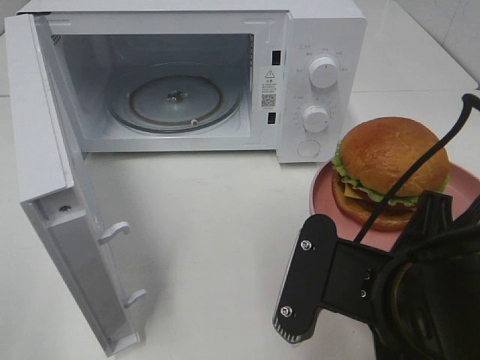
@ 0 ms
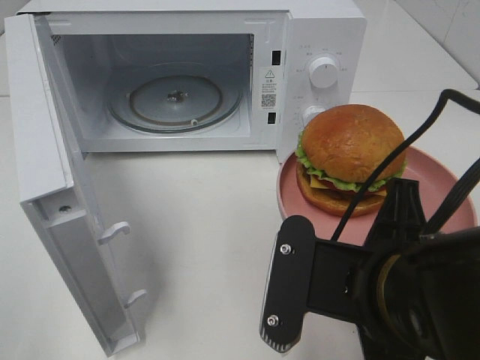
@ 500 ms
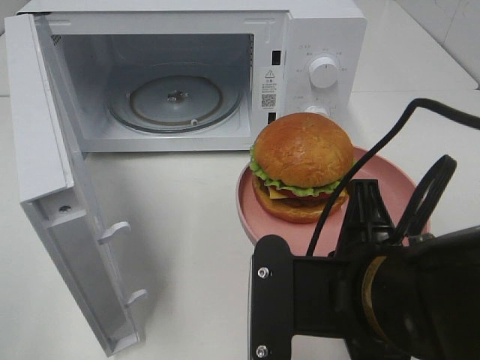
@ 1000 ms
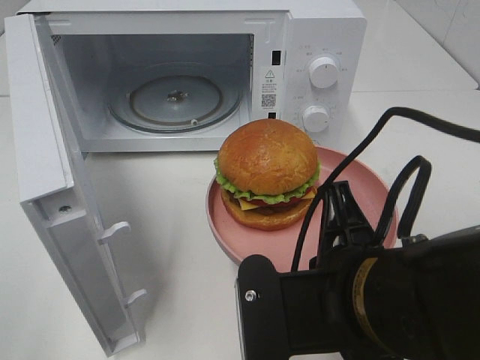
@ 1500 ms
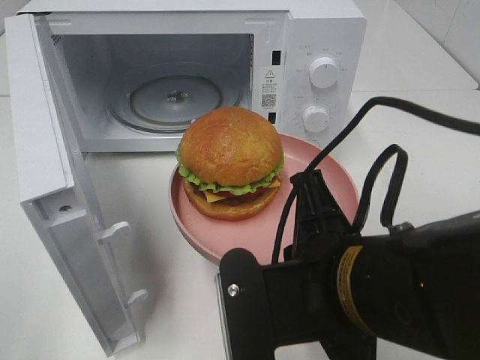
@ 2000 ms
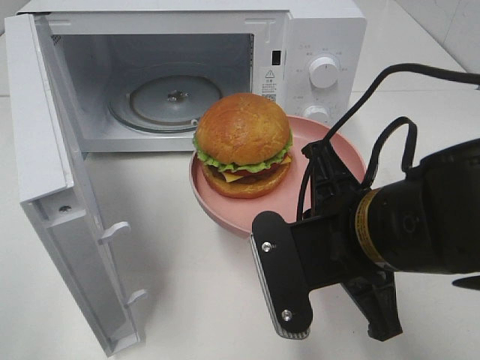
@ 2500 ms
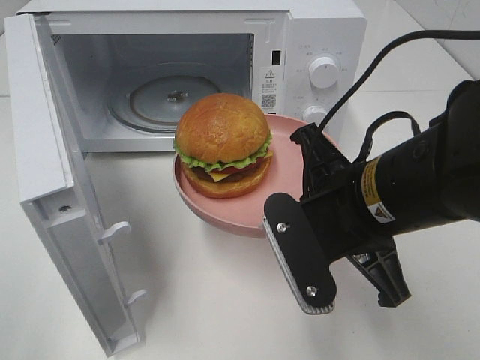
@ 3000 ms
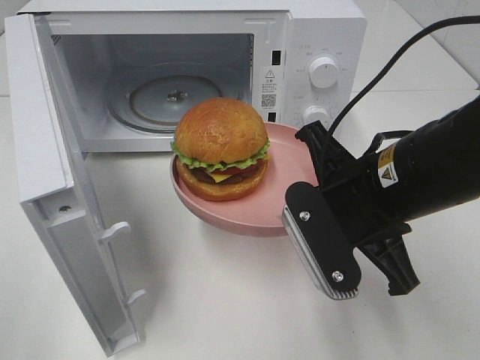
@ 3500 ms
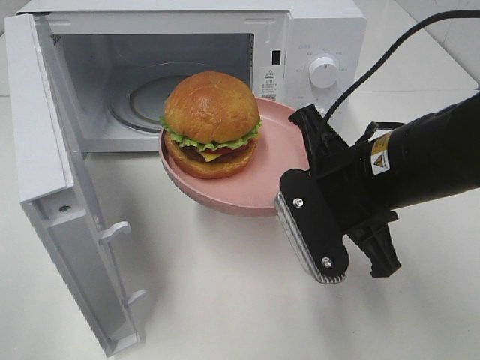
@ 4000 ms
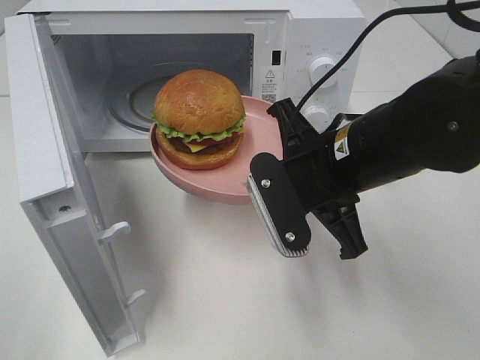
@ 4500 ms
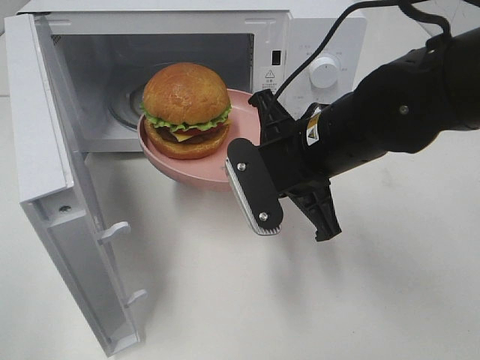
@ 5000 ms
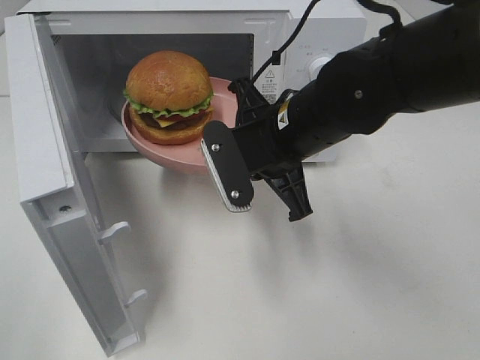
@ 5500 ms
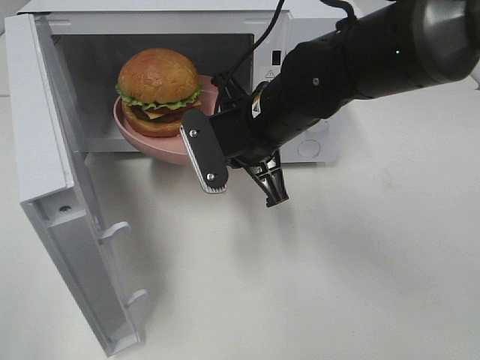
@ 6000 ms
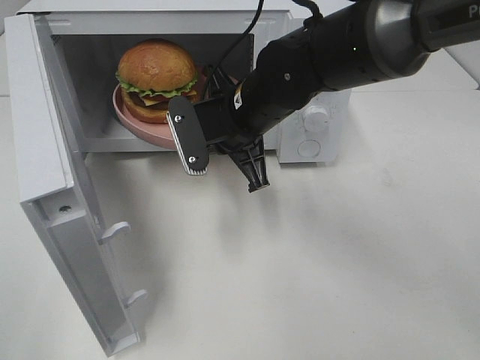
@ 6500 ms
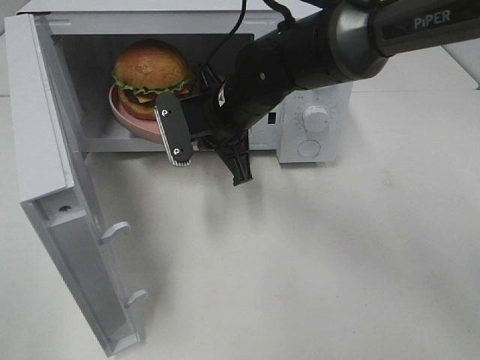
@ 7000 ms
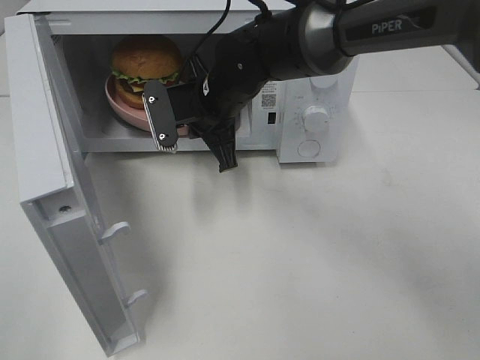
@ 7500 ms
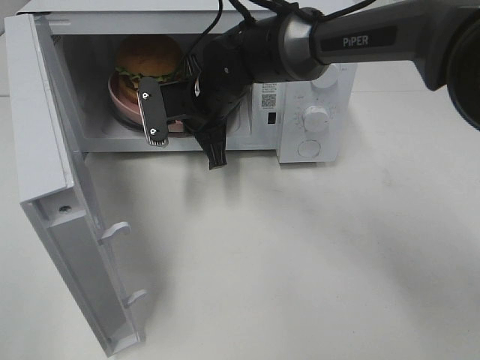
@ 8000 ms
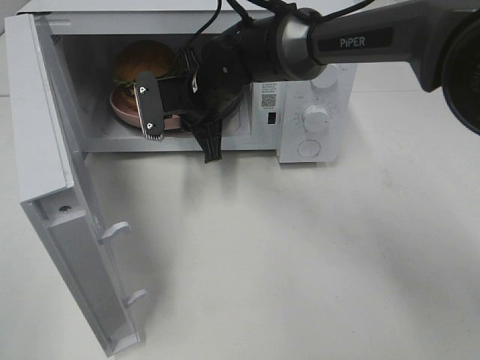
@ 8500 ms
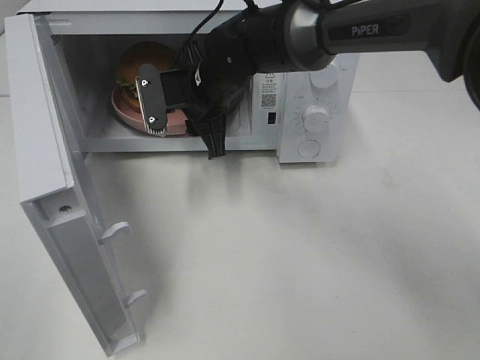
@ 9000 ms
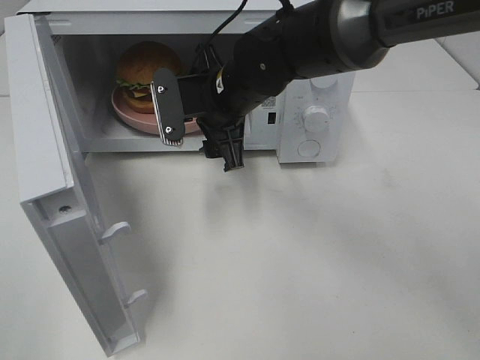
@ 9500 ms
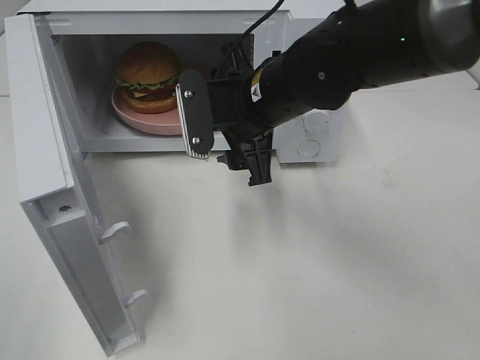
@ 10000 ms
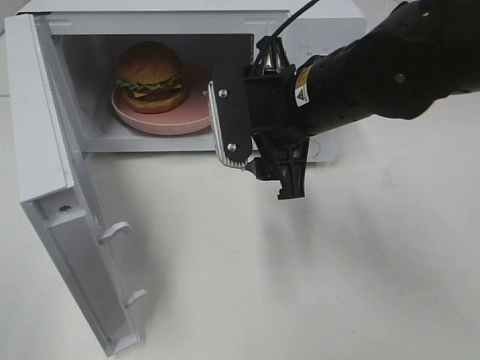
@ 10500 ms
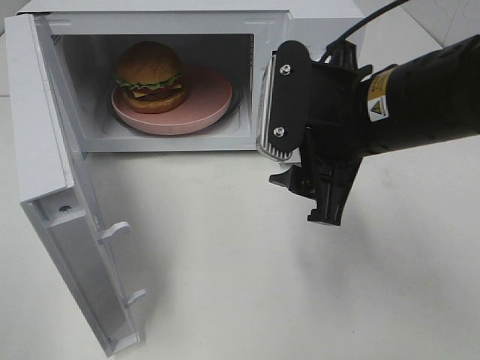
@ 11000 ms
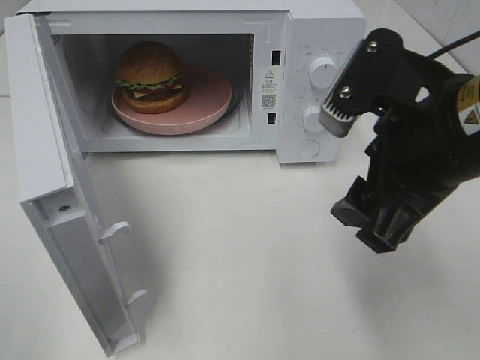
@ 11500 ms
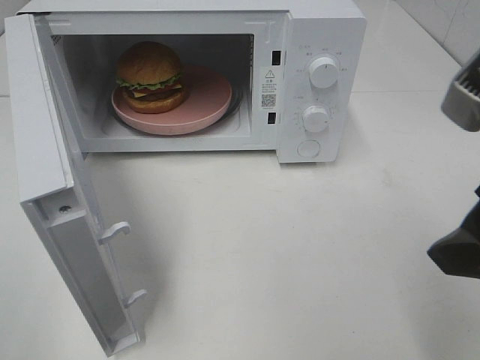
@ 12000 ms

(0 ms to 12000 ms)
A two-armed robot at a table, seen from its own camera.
Task of the whole recording: Heat the burger.
Step, 0 ms - 8500 ms: Right hand: place the plate in the microwave.
2000 ms - 4000 ms: The right gripper heads forward, covering roughly 10 cm.
4000 ms - 6000 ms: The right gripper goes some 15 cm forward and to the left.
6000 ms - 8000 ms: The right gripper heads forward and to the left, covering approximately 10 cm.
8000 ms - 10000 ms: The right gripper is displaced backward and to the right by about 10 cm, and opens.
10000 ms - 12000 ms: The right gripper heads backward, to the right and upward, covering approximately 25 cm.

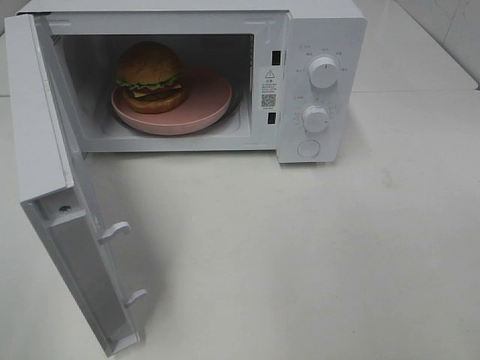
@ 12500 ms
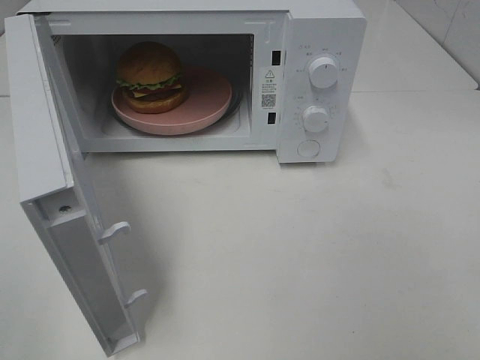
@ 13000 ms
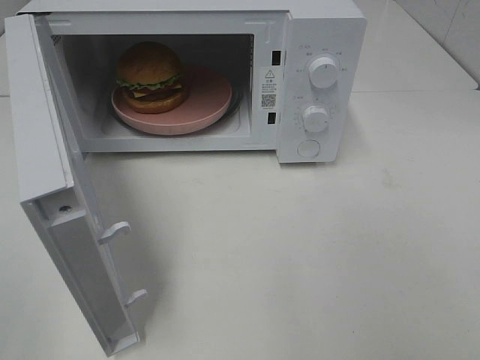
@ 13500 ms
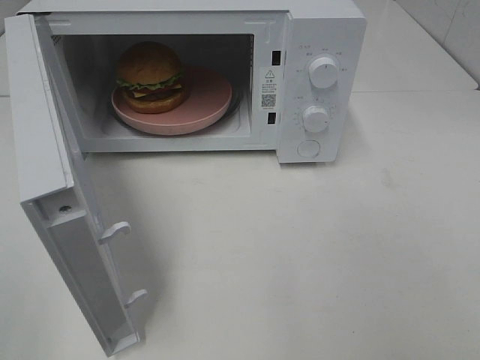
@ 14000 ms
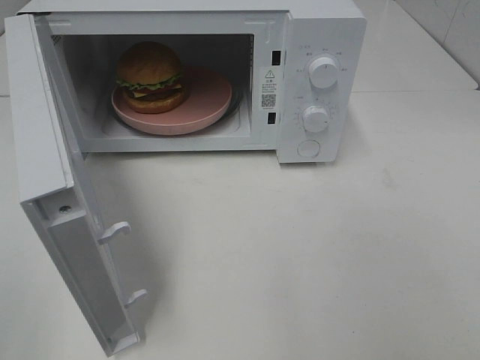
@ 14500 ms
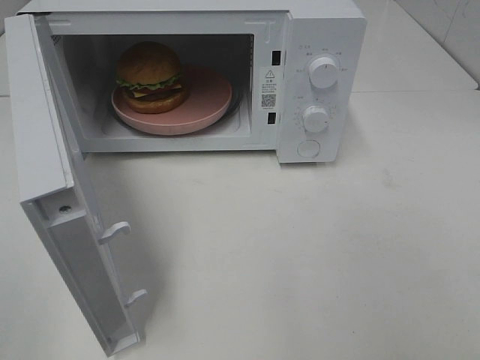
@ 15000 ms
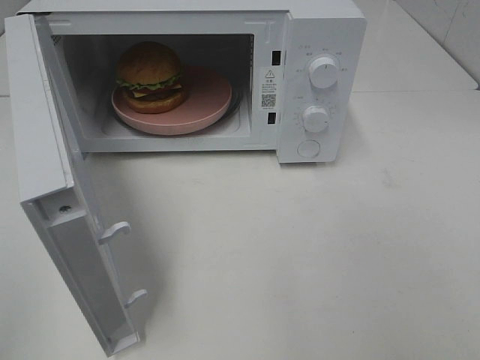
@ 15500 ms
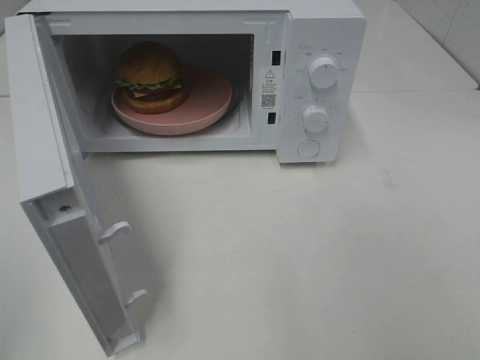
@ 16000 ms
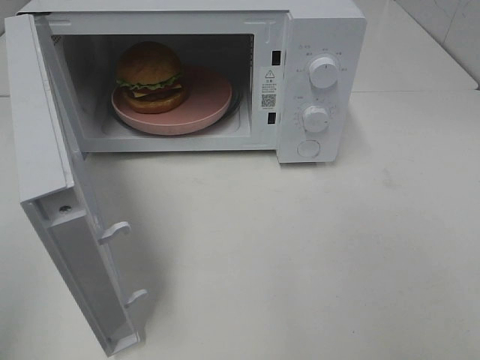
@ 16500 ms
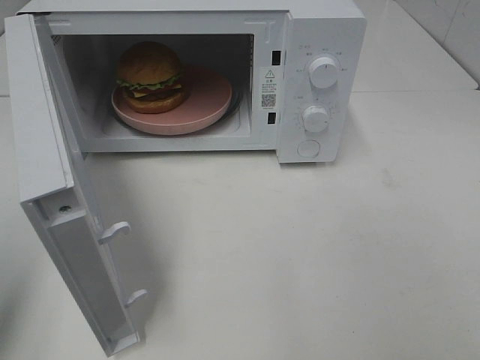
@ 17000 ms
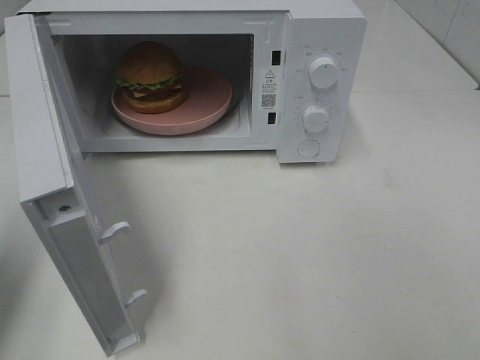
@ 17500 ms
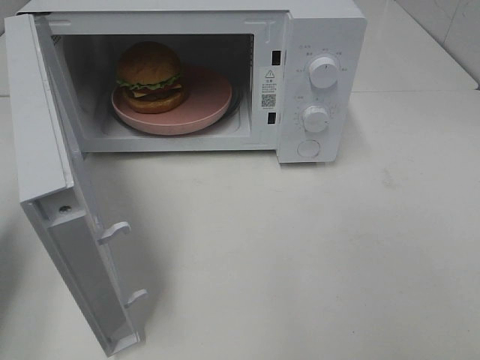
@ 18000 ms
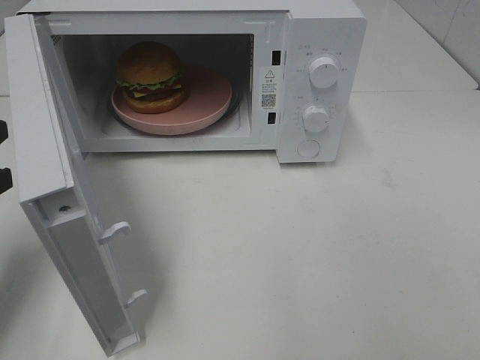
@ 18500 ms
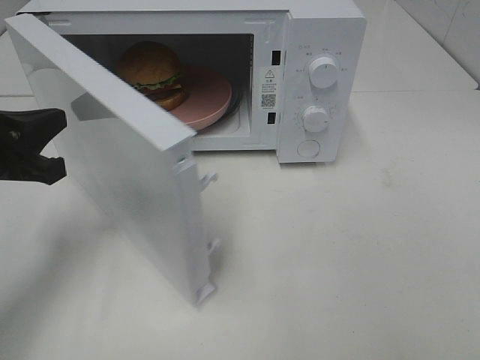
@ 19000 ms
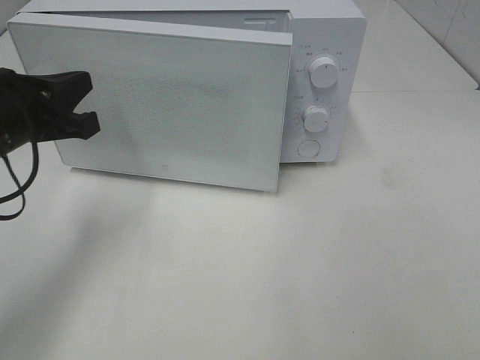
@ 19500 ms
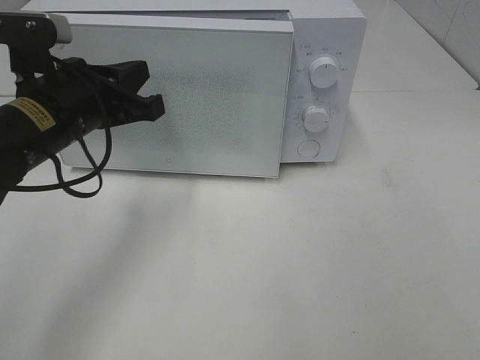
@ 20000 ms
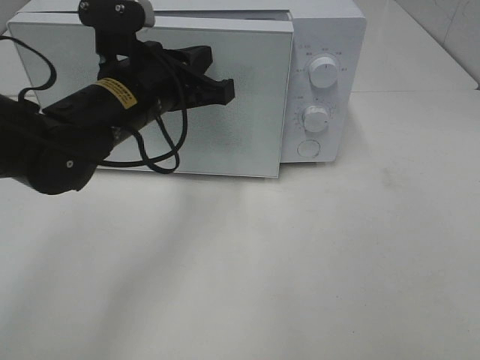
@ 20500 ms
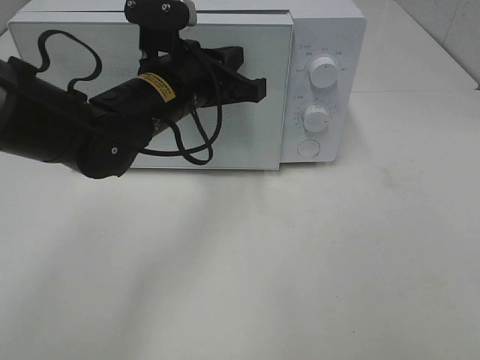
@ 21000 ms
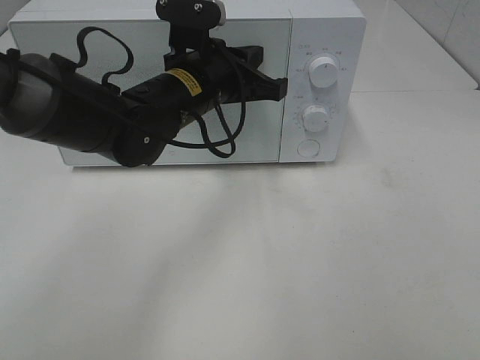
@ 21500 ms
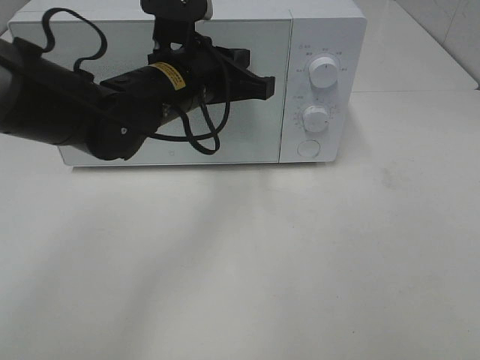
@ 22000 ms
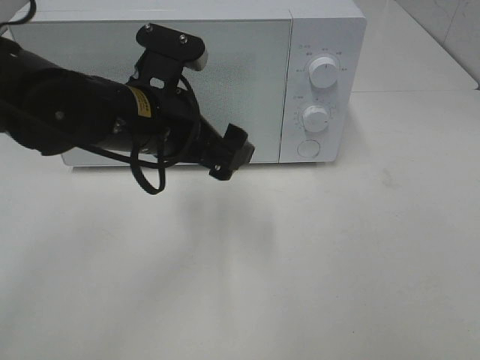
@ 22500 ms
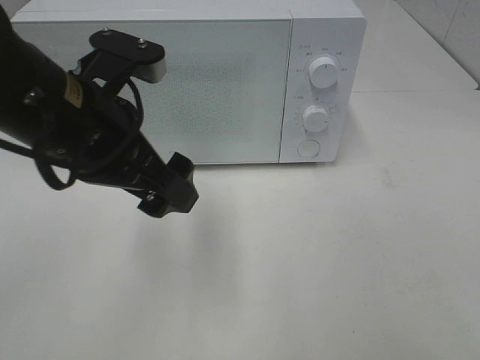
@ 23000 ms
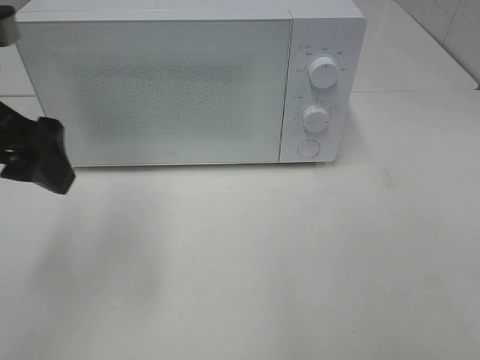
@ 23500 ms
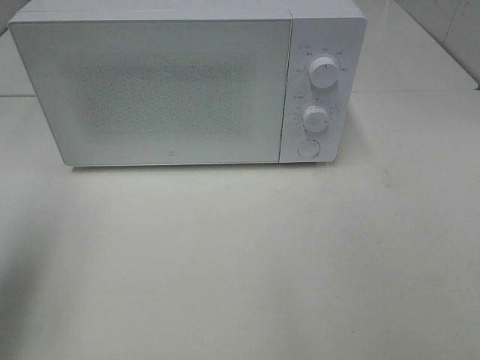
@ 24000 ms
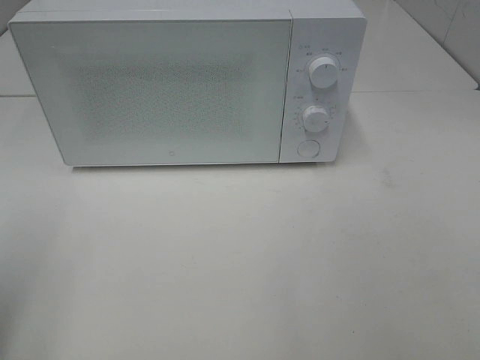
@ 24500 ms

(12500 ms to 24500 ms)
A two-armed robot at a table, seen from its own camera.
Task of the whole recording: Heat the burger.
Step, 12500 ms - 22000 ms: Left hand: close the microwave door.
16500 ms - 18500 ms: The left gripper goes roughly 20 cm forward and downward, and closes its fingers.
18500 ms - 20500 ms: The left gripper travels to the right and forward by about 20 cm.
20500 ms - 22500 ms: The left gripper opens.
22500 ms - 24500 ms: The left gripper is displaced to the left and backward by roughly 30 cm.

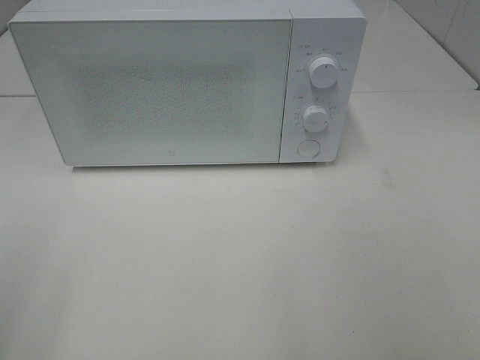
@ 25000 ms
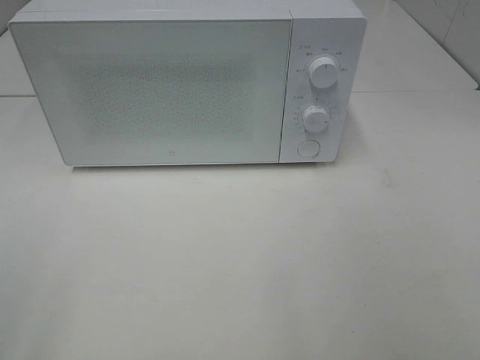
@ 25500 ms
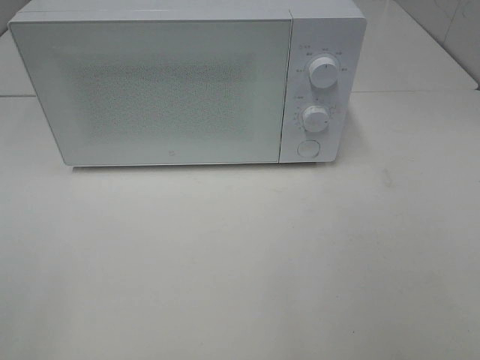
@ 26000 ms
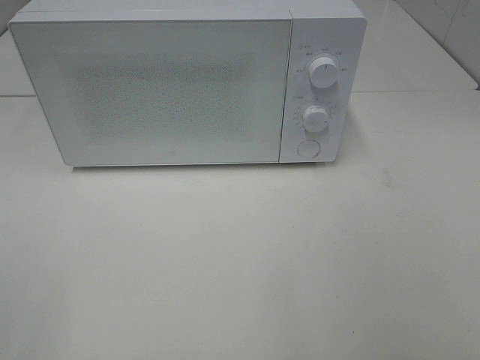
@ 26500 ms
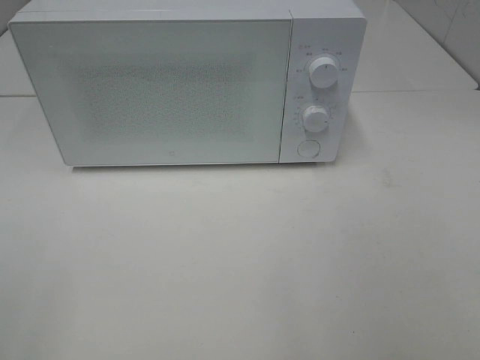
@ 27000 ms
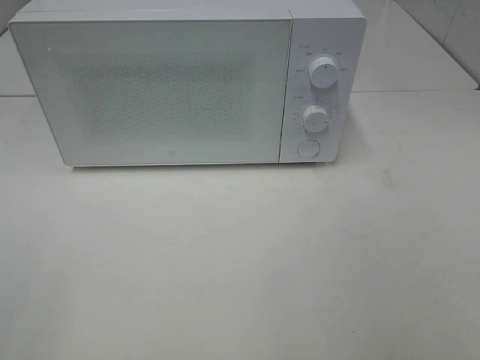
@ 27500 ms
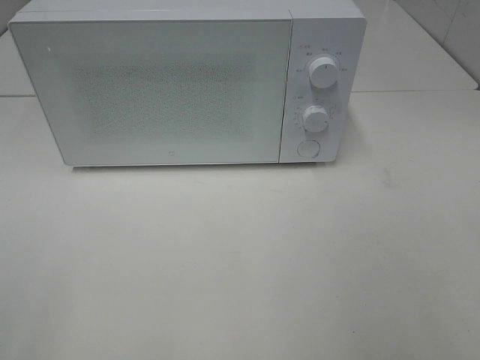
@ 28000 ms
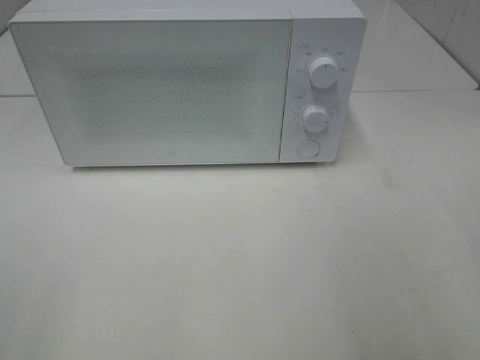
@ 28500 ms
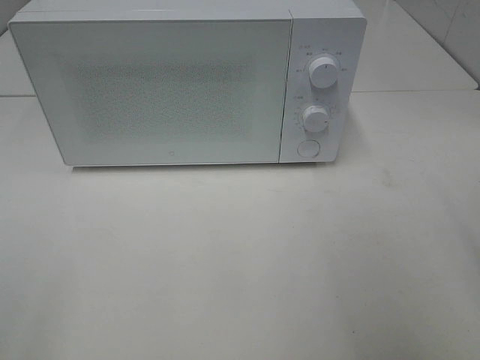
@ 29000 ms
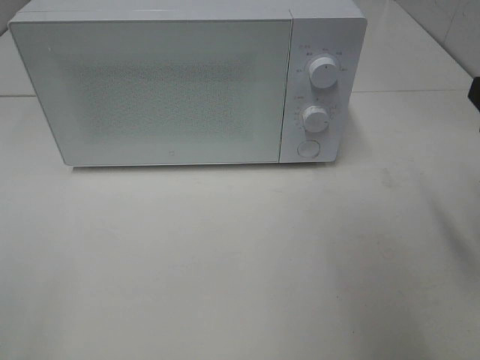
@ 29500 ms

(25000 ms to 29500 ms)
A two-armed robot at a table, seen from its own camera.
Task of the whole recording: Heat the burger.
27000 ms - 29500 ms: The right gripper goes some 20 cm forward.
